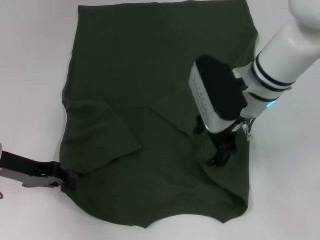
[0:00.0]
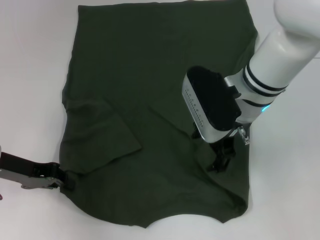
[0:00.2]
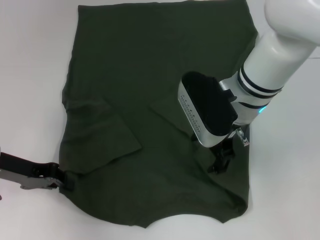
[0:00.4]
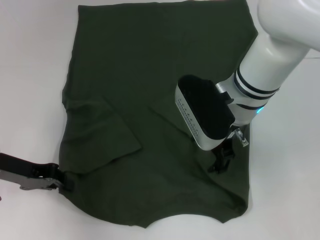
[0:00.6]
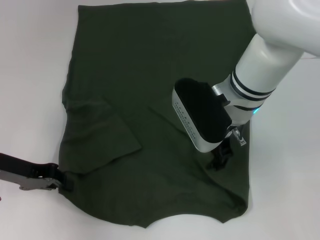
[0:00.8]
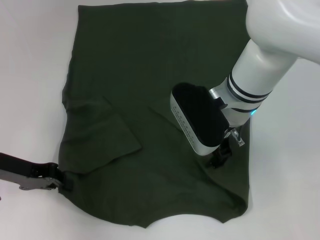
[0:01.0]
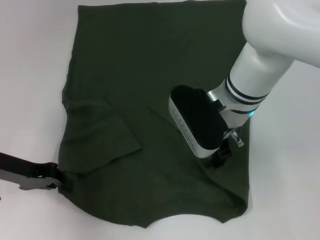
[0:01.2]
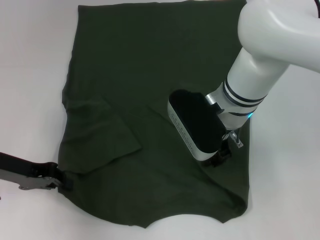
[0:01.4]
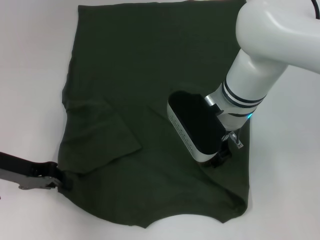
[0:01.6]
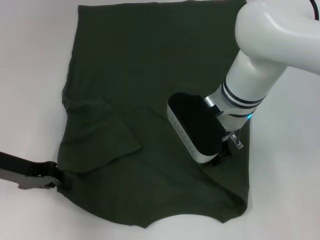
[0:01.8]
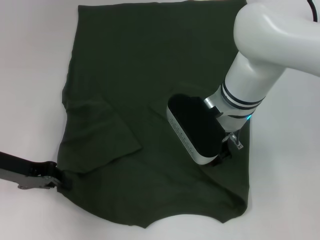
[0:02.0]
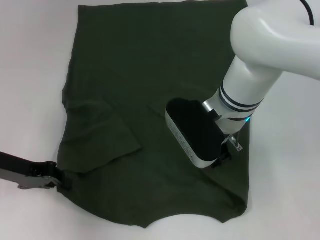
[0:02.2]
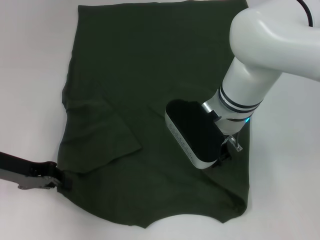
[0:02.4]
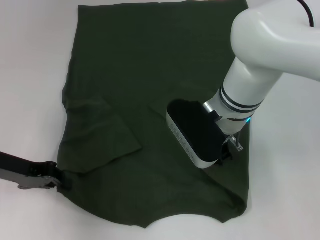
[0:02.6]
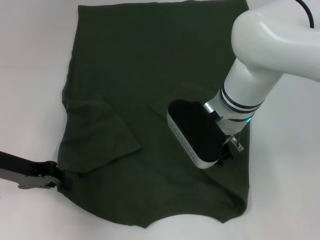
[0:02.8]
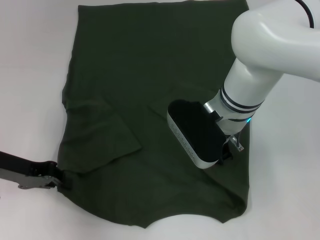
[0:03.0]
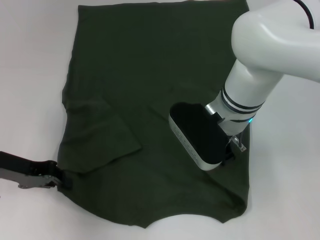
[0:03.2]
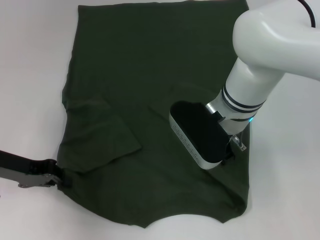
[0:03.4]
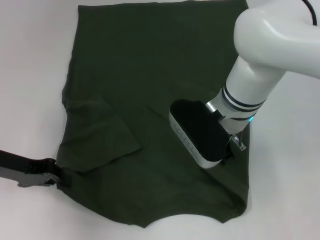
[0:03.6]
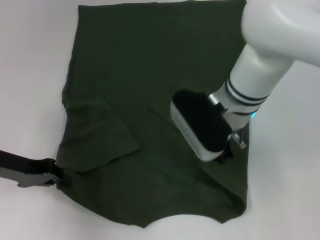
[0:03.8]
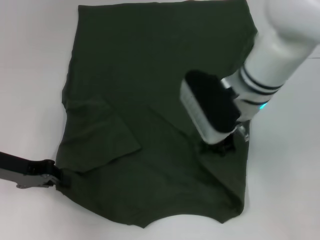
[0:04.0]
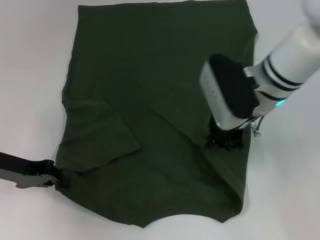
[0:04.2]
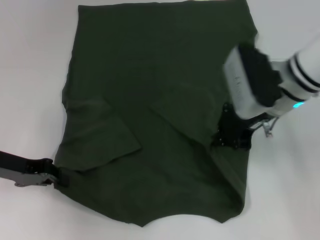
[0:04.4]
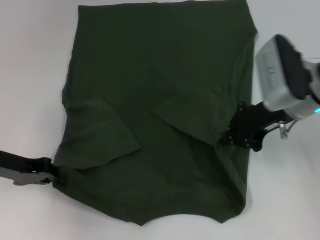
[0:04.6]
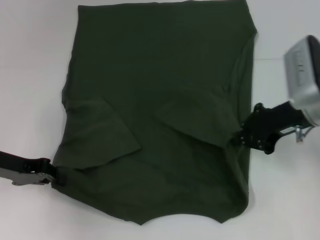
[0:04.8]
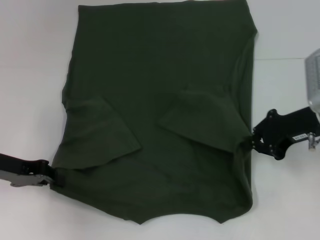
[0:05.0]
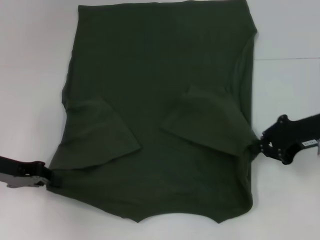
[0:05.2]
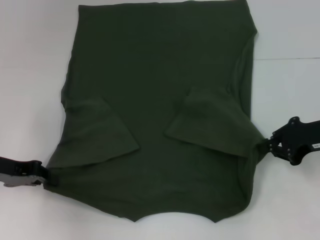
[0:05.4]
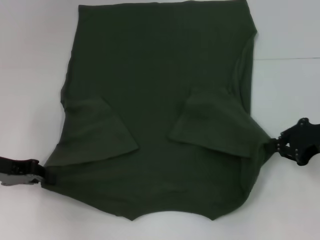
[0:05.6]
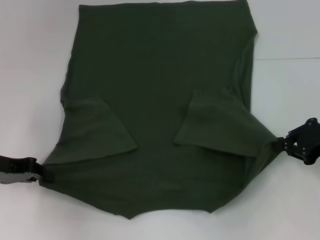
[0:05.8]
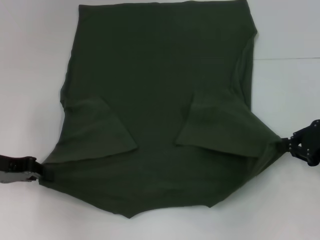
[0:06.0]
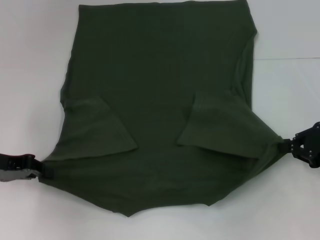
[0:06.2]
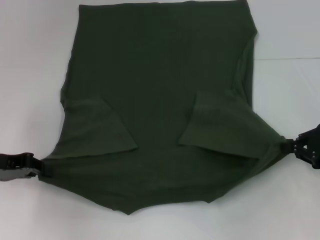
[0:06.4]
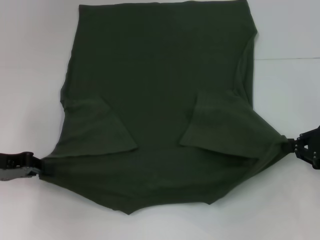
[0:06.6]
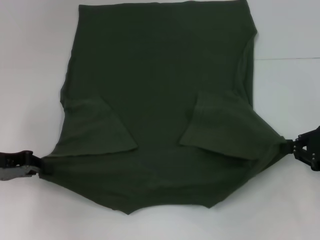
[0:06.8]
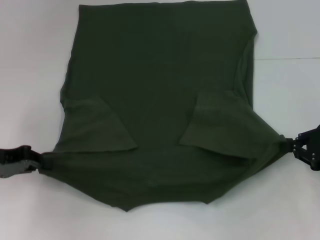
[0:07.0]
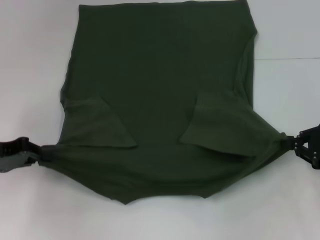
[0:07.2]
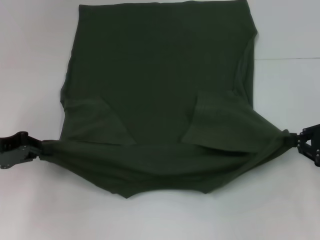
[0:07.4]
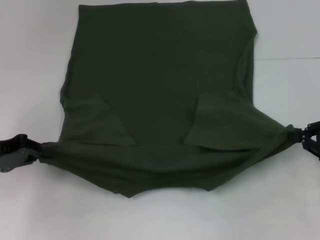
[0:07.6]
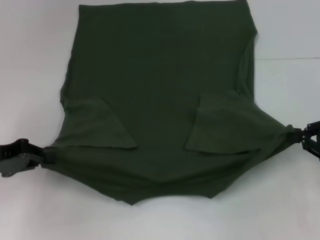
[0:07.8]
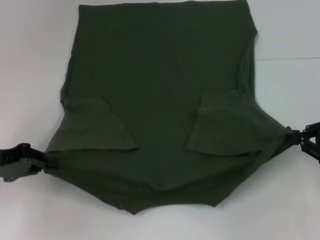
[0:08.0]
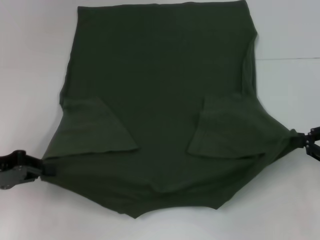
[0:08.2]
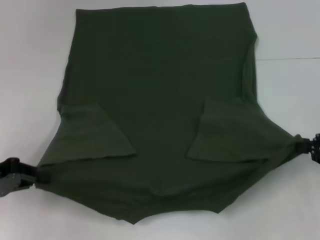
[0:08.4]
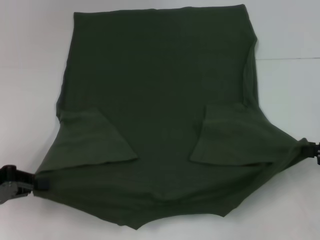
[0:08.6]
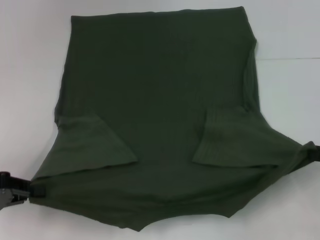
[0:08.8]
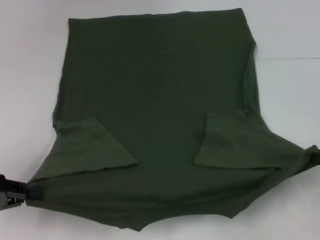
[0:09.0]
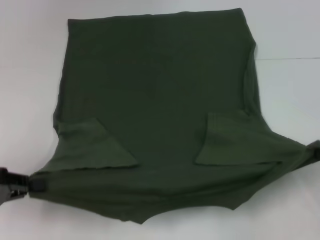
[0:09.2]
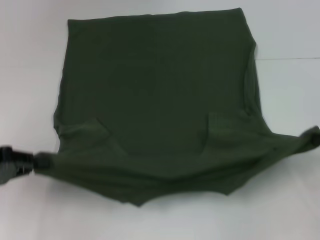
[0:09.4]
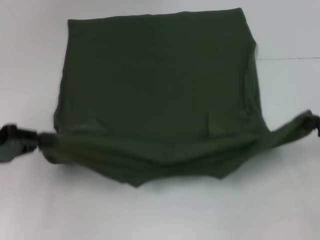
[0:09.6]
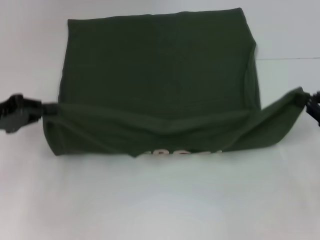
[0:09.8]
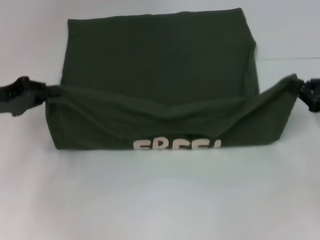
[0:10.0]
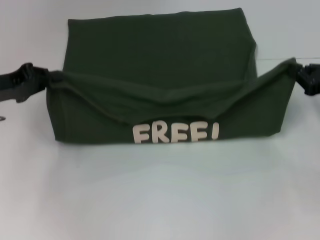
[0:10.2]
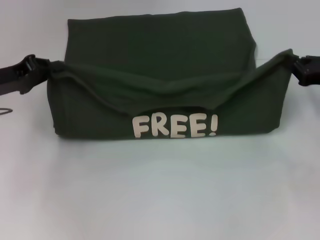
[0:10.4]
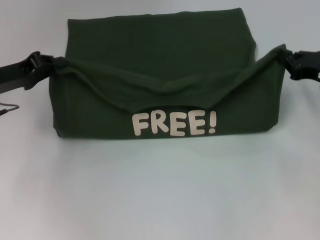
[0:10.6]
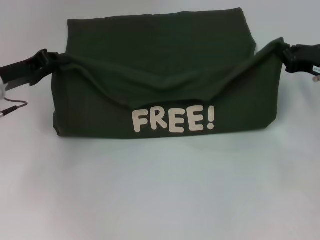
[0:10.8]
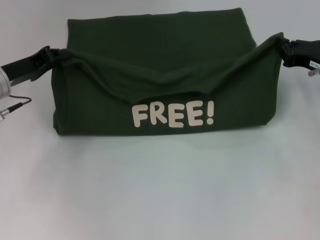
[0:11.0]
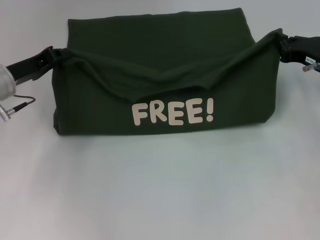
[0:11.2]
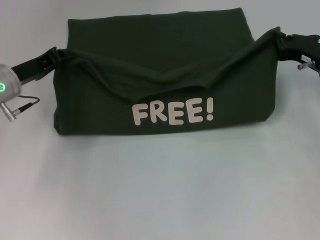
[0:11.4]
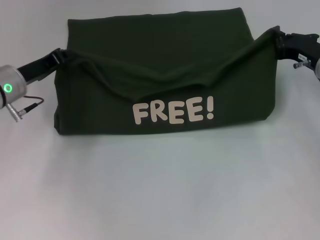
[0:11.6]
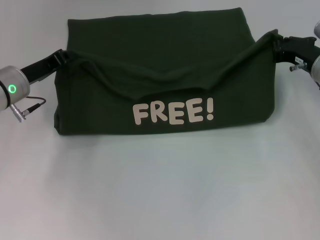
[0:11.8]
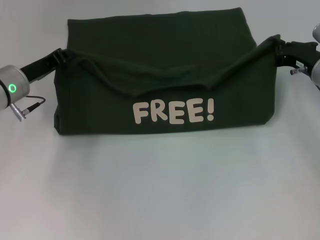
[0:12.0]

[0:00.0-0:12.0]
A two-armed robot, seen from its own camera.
Step, 0:00.0 to 0:06.8: Grab the bottom right corner with your right hand.
0:00.0 to 0:01.6: The grippers make only small movements.
0:01.6 to 0:03.0: The right gripper closes up.
0:03.0 to 0:04.4: The right gripper is displaced to the right by roughly 10 cm.
0:04.4 to 0:06.0: The right gripper shifts about 15 cm to the right.
0:06.0 to 0:07.6: The grippers stay close to where they were, moving slightly.
0:07.6 to 0:09.0: The left gripper goes roughly 5 cm backward, while the right gripper shifts by about 5 cm.
0:09.0 to 0:10.4: The left gripper shifts roughly 15 cm forward. The right gripper shifts approximately 15 cm forward and to the left.
0:10.4 to 0:12.0: The right gripper goes about 10 cm to the left and forward. Meanwhile the left gripper shifts about 5 cm to the right.

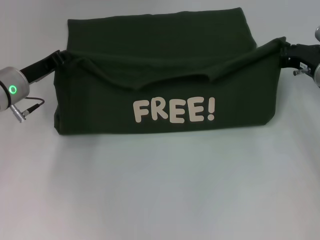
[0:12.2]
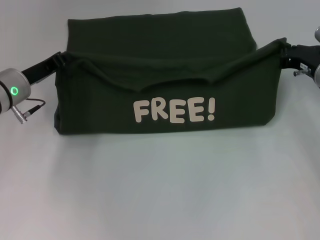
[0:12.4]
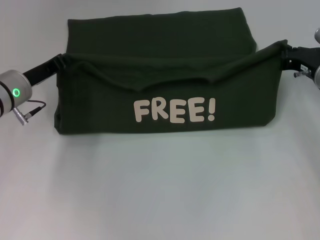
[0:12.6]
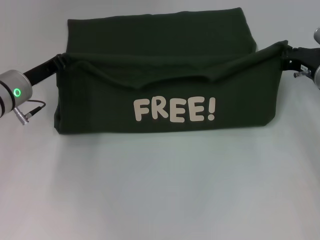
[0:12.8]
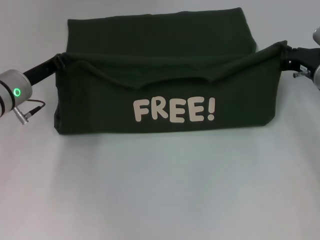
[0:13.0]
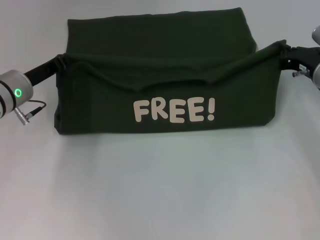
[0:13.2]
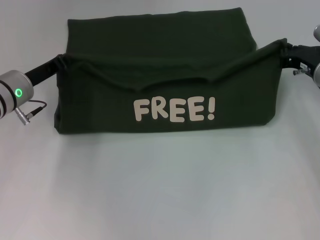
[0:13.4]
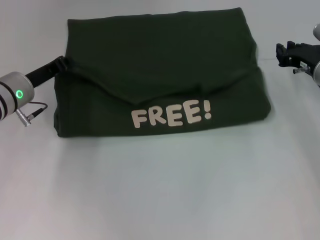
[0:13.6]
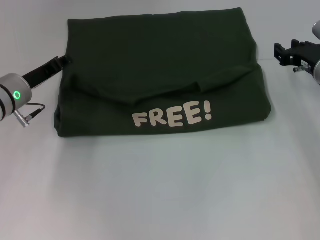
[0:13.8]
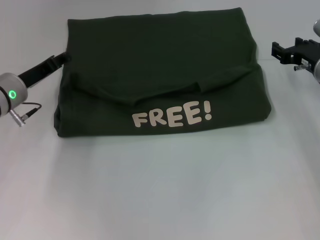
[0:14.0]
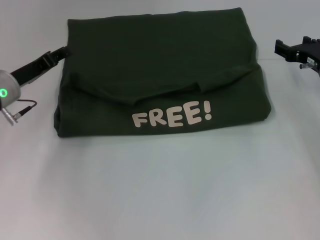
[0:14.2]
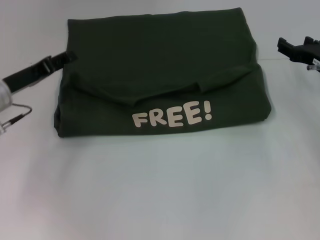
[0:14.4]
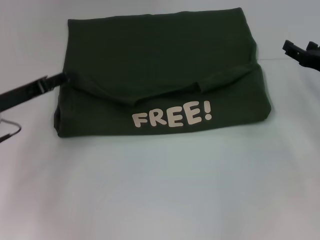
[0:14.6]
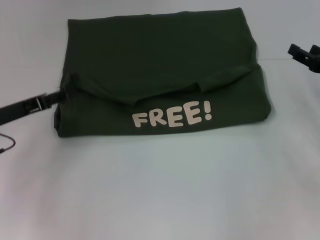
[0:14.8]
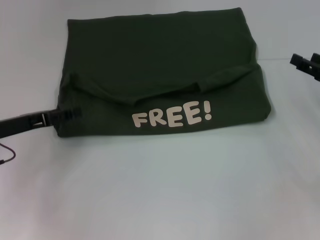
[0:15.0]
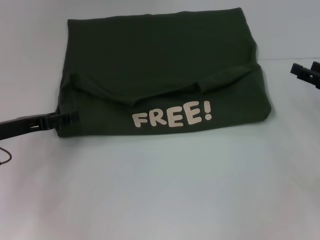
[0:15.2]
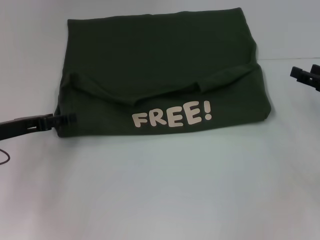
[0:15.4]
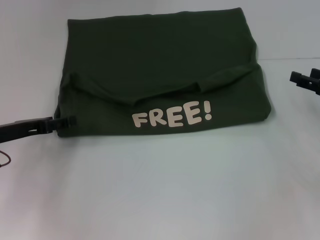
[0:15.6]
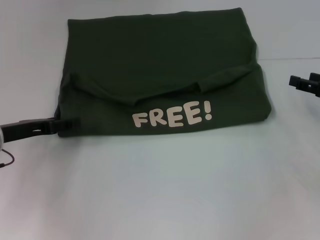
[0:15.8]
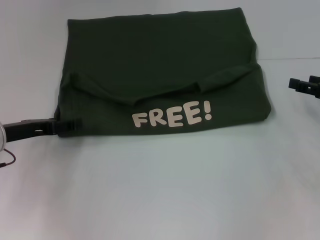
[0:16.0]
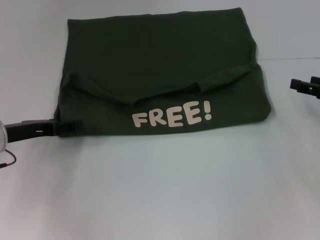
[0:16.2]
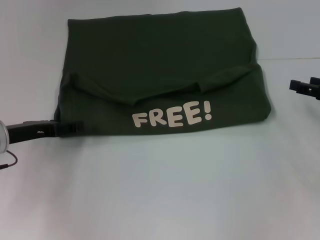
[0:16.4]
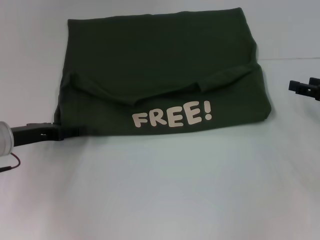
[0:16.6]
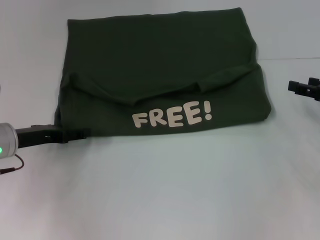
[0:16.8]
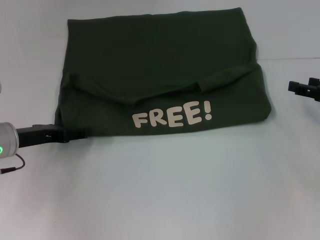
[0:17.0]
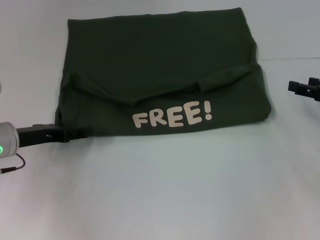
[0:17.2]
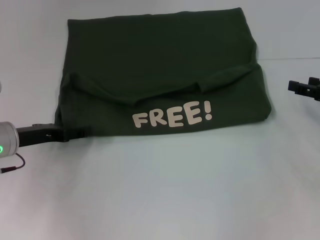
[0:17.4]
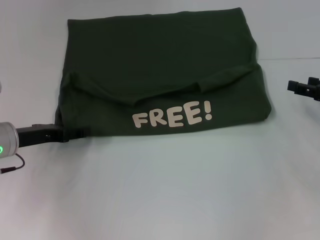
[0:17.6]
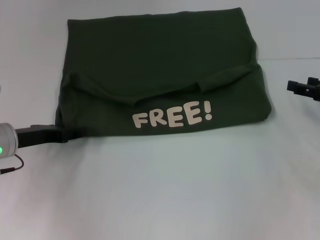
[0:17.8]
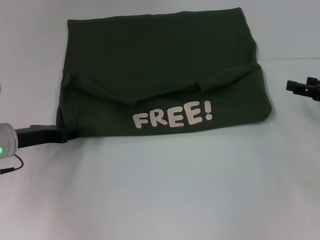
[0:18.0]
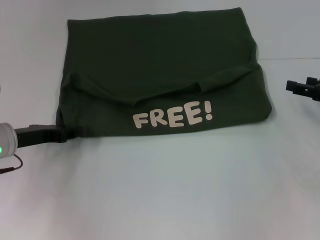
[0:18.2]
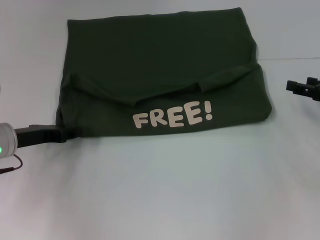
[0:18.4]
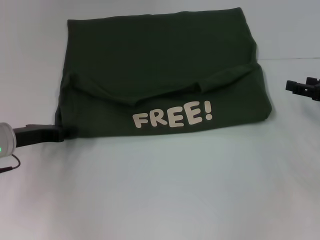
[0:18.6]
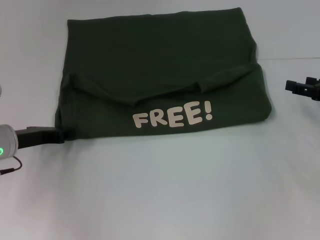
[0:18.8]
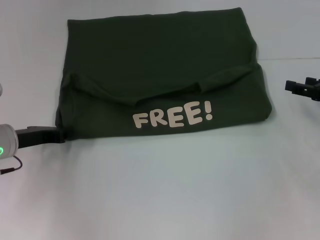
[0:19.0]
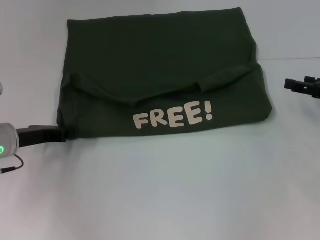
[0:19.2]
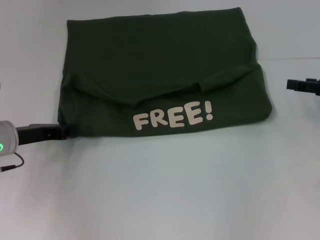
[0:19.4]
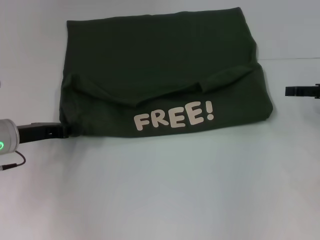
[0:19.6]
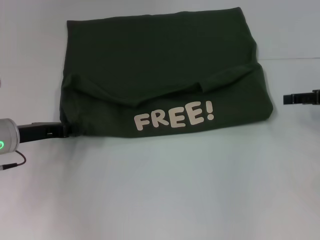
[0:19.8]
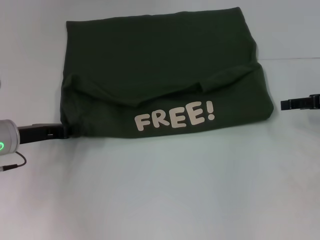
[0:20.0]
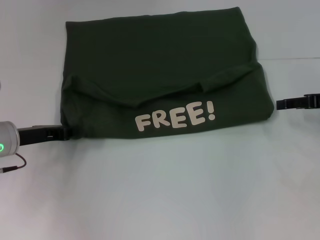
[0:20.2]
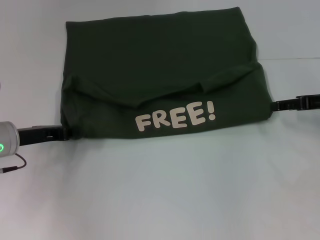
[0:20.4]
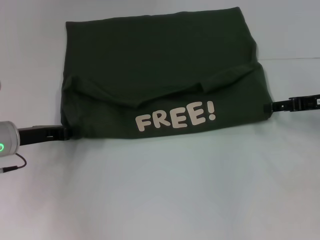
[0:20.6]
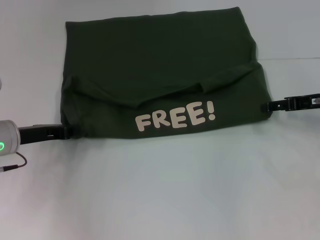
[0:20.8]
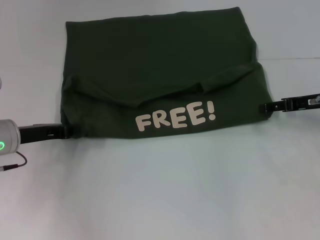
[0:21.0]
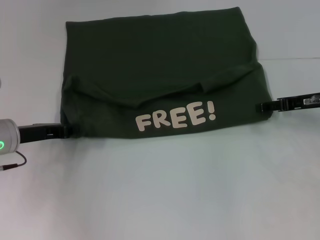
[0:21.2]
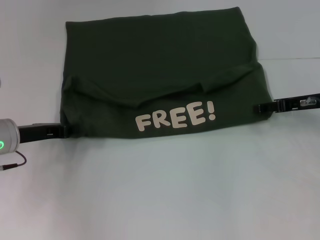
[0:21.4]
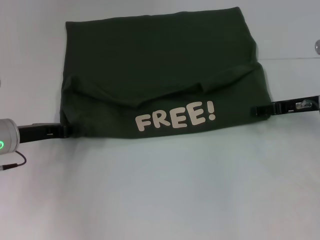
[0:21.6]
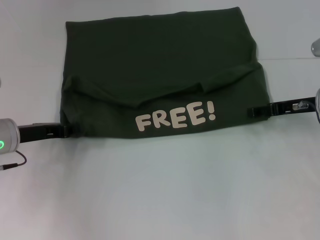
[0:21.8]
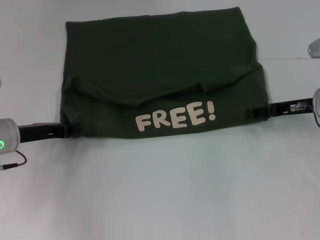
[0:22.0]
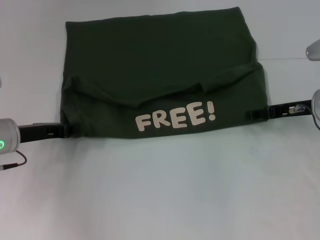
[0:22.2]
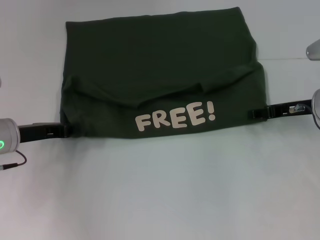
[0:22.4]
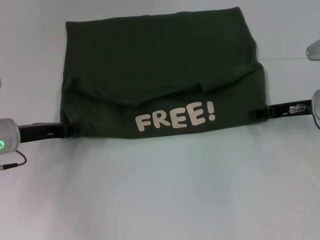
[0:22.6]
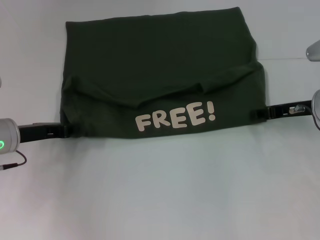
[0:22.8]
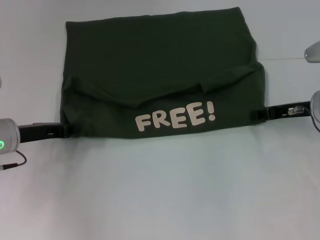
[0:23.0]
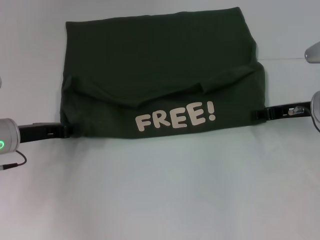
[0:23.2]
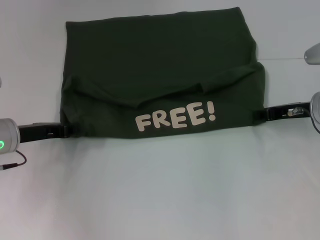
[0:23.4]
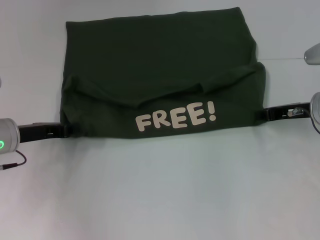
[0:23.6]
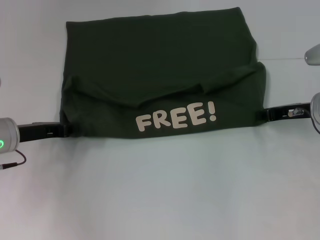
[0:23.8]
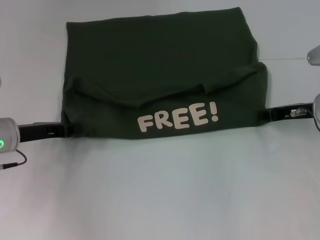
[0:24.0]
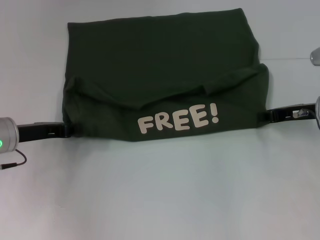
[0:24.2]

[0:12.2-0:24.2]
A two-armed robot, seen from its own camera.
Step, 0:12.2 to 0:14.4: Fold the clothes with your left hand.
Step, 0:12.2 to 0:14.4: Fold the clothes with your right hand.
0:12.2 to 0:13.8: The two grippers keep their place.
0:13.8 to 0:15.2: The right gripper is displaced to the right and backward by approximately 10 cm, and opens up; the left gripper heads backward, covering approximately 5 cm, and opens up.
0:15.2 to 0:16.6: The grippers make only small movements.
0:16.6 to 0:18.2: The left gripper closes its fingers.
0:18.2 to 0:19.8: The left gripper closes.
0:19.8 to 0:21.2: The right gripper heads to the left, covering roughly 5 cm.
0:21.2 to 0:22.6: The grippers move only a little.
0:22.6 to 0:24.2: The right gripper closes up.
